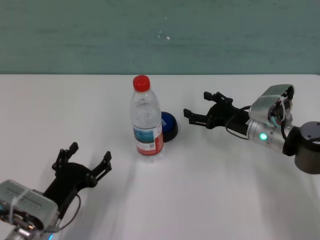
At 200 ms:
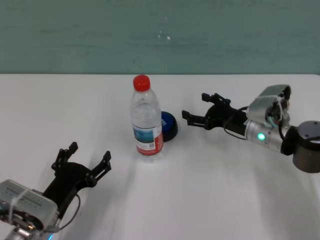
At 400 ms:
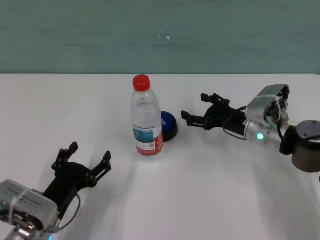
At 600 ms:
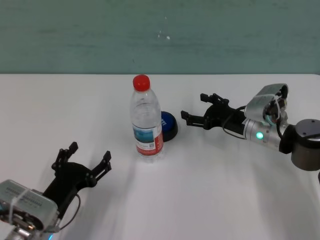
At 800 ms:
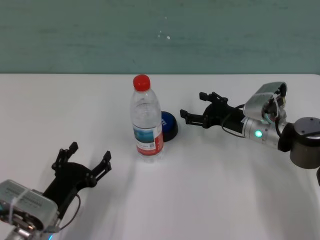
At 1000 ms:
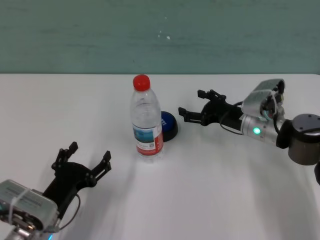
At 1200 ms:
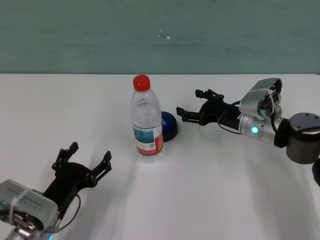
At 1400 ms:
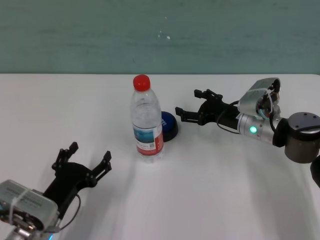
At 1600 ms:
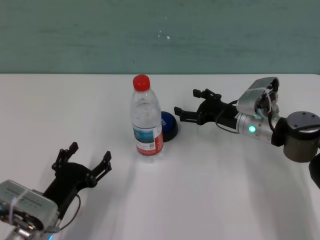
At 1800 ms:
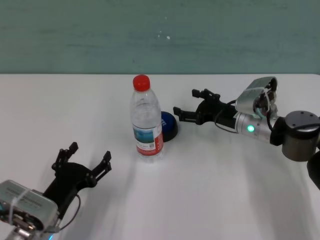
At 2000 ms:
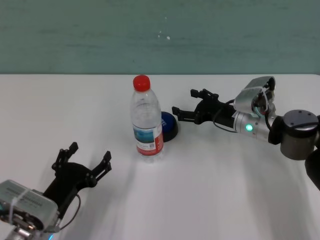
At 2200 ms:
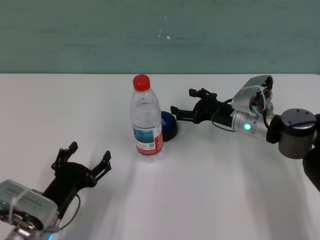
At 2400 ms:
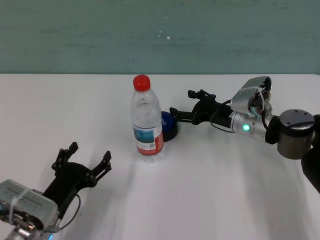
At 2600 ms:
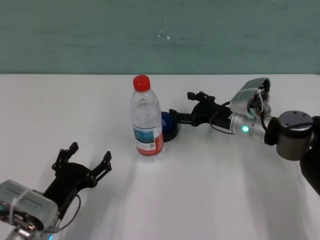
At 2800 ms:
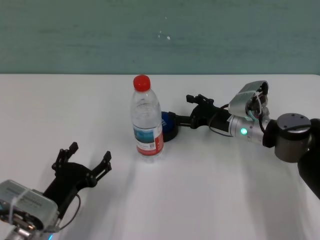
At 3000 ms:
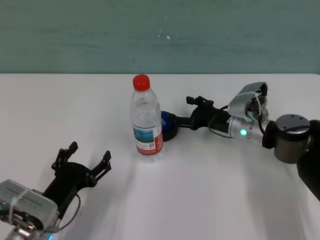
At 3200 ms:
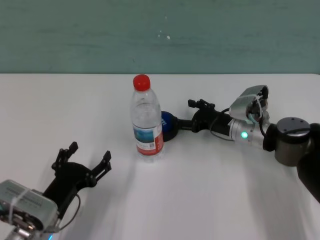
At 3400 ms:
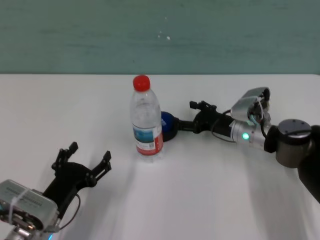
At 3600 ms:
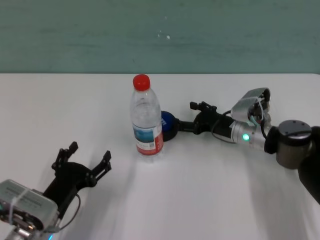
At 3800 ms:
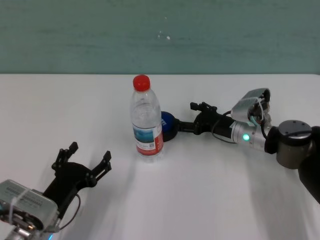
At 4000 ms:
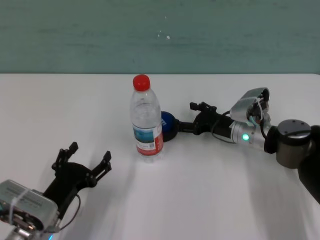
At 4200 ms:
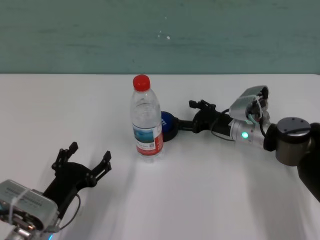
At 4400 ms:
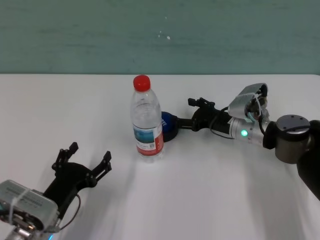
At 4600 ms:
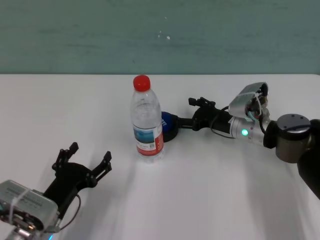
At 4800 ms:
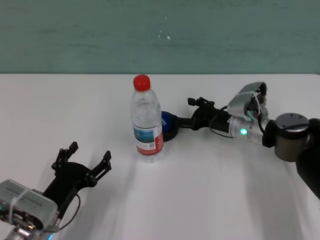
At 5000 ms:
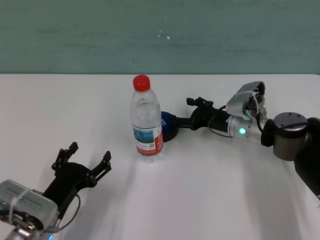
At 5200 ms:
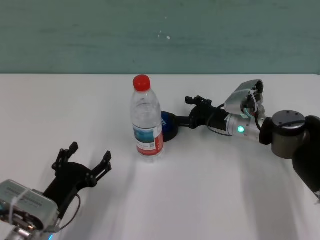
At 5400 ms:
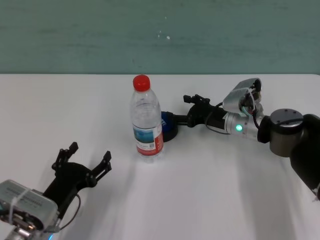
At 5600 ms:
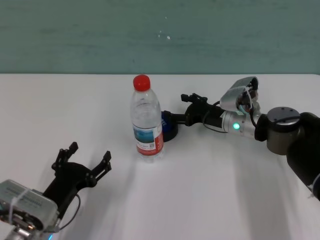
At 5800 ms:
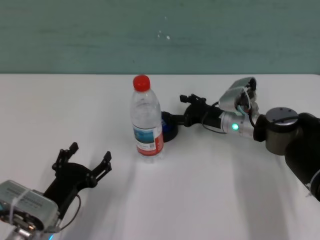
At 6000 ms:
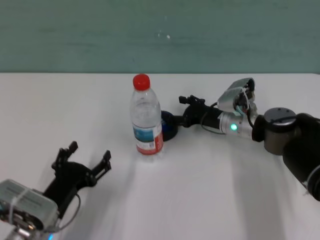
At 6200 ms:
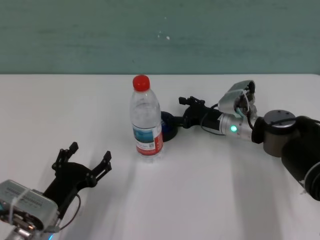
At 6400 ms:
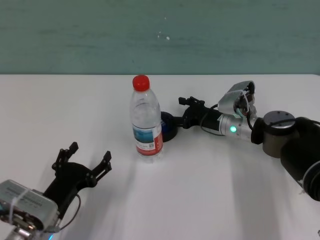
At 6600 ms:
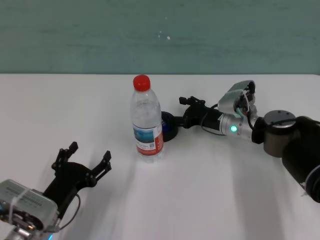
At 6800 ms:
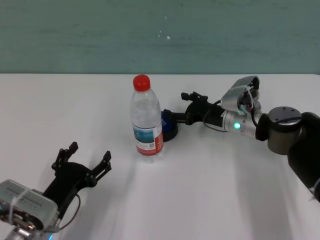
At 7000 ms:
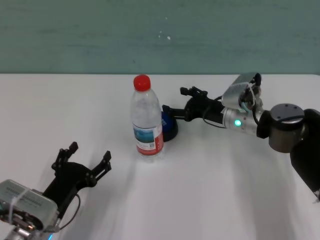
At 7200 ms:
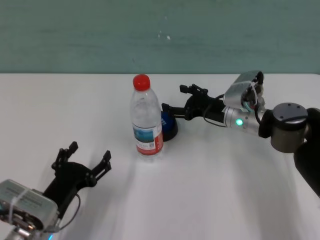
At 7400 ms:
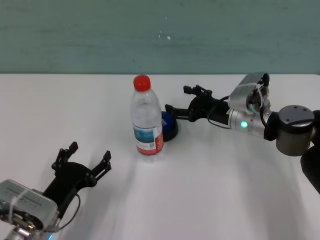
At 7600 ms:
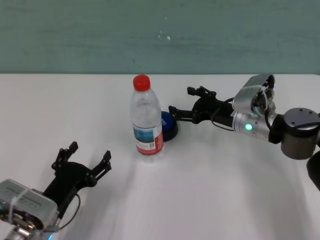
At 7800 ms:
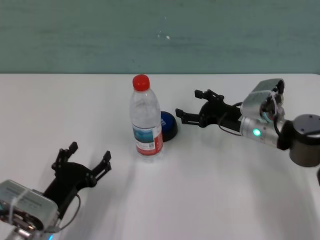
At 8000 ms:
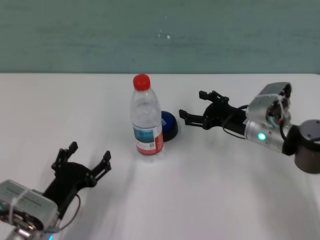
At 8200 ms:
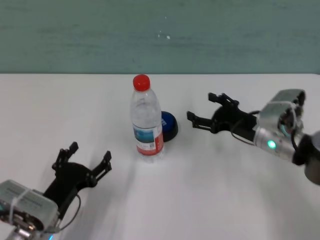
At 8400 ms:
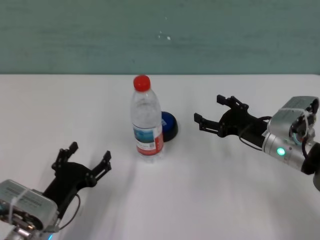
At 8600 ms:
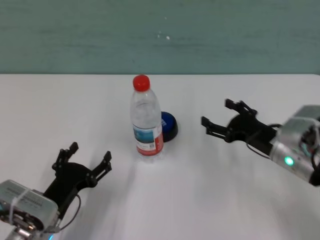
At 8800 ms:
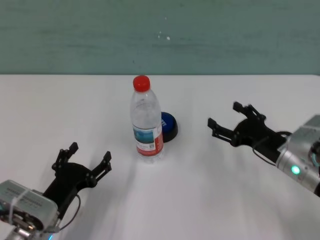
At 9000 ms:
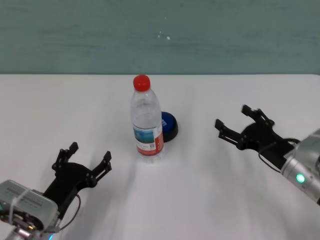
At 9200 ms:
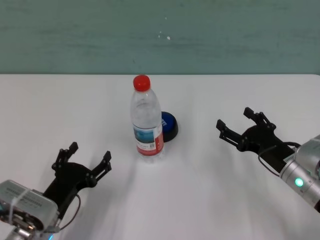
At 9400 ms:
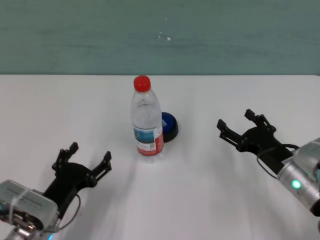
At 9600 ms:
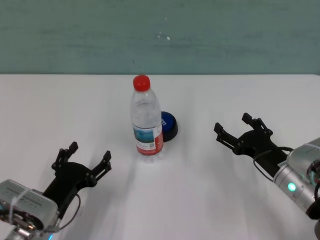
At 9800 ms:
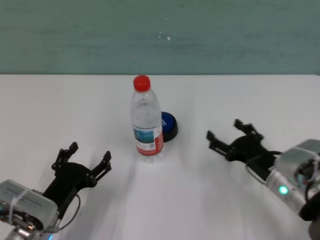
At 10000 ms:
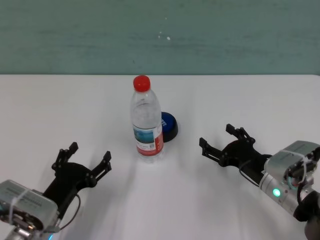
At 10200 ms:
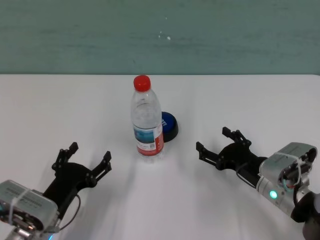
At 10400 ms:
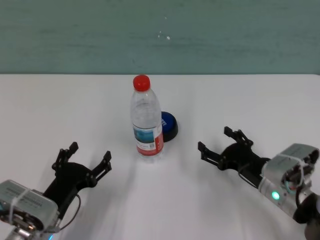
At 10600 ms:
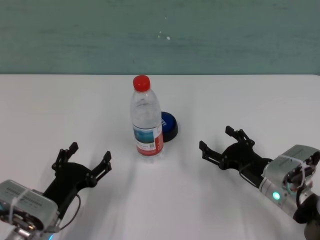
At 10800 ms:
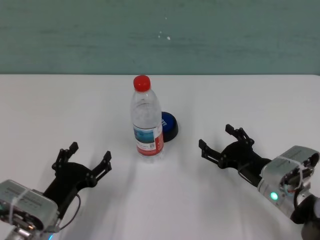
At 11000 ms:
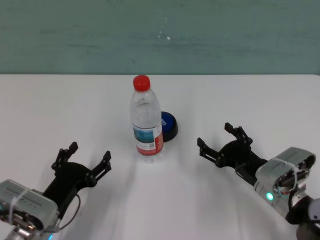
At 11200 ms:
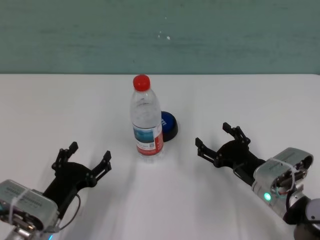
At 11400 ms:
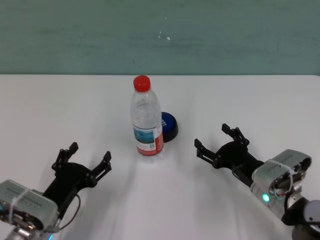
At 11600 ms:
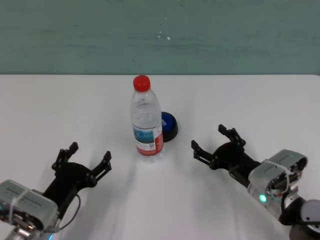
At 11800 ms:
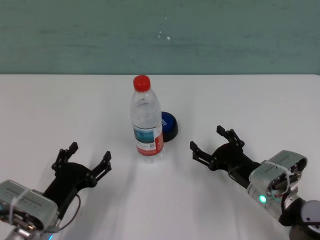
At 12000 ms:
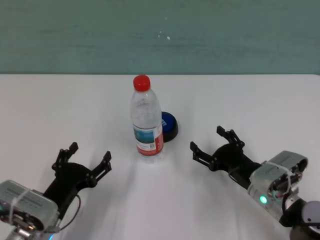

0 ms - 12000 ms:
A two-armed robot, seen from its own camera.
Task of the whole recording: after avoiding the water bottle on the table, press the button.
Step, 0 ms - 6800 ms: Press the button blocked by the bottle with right gripper.
